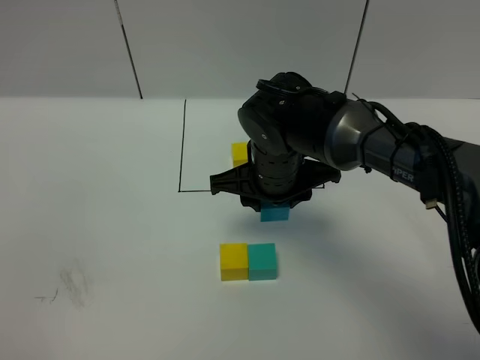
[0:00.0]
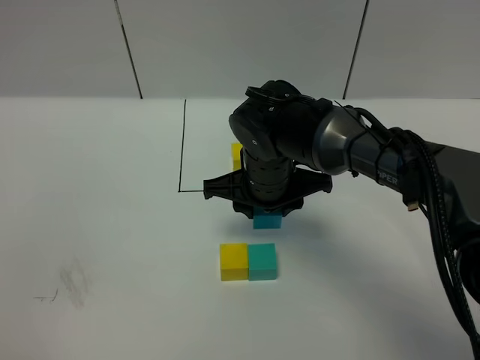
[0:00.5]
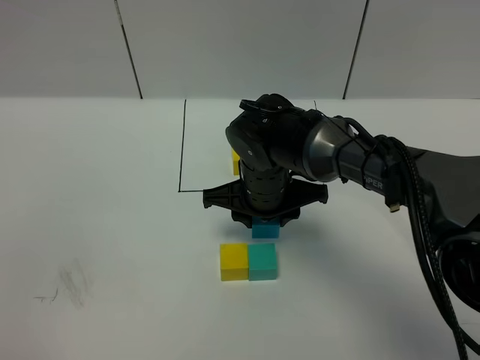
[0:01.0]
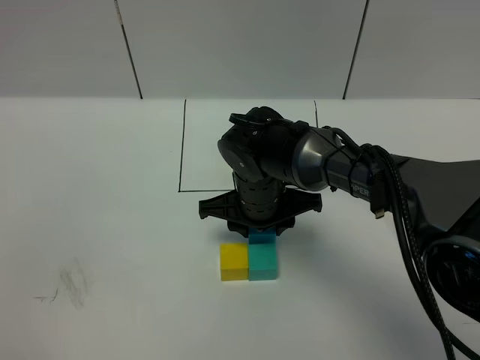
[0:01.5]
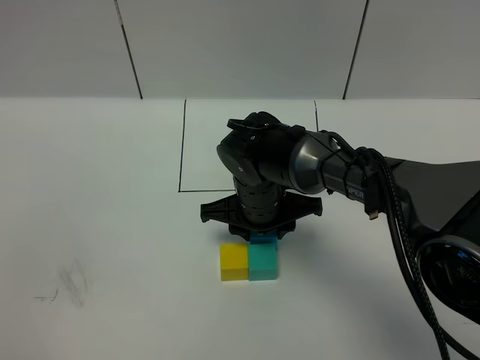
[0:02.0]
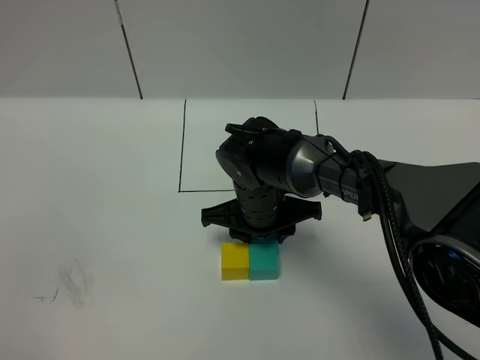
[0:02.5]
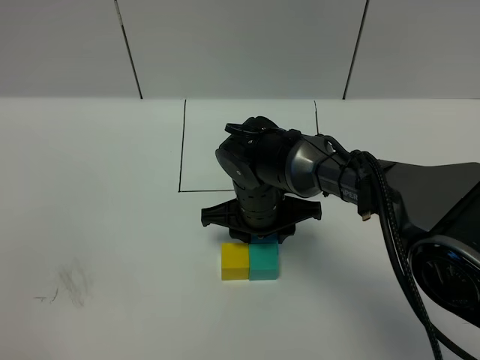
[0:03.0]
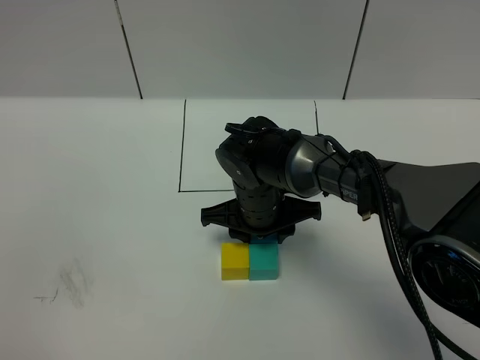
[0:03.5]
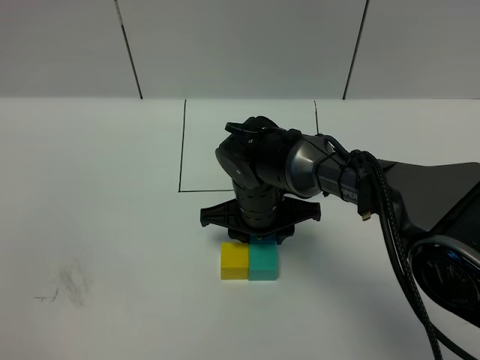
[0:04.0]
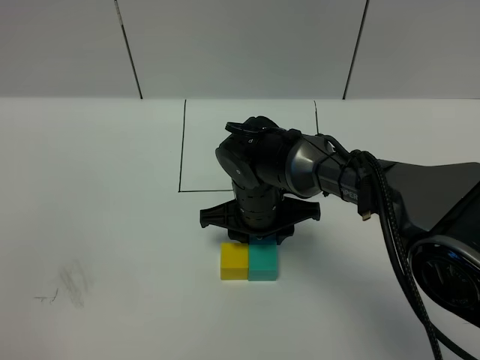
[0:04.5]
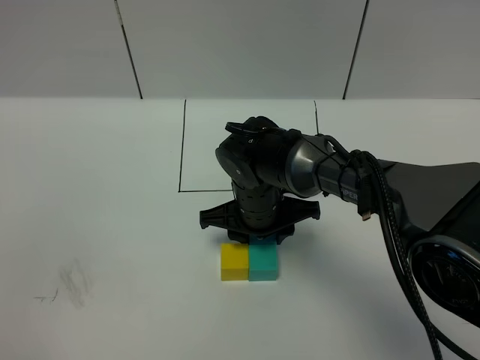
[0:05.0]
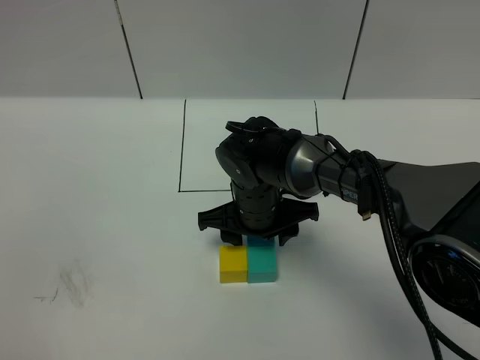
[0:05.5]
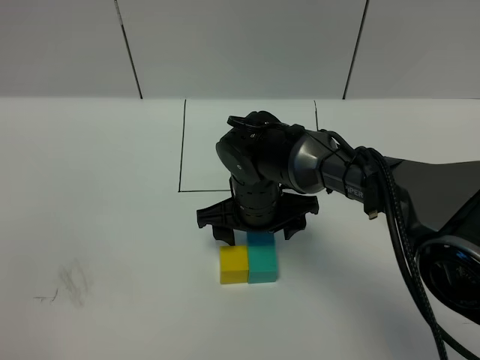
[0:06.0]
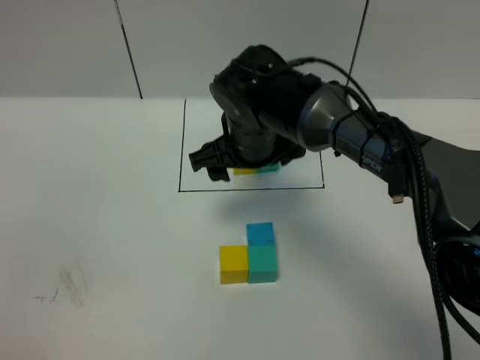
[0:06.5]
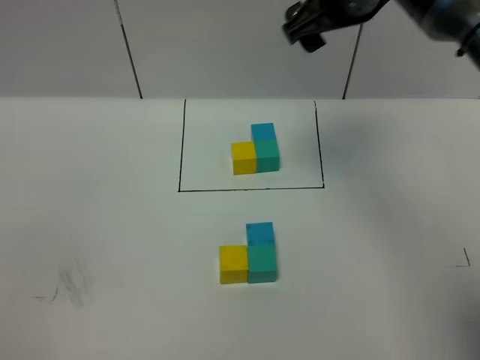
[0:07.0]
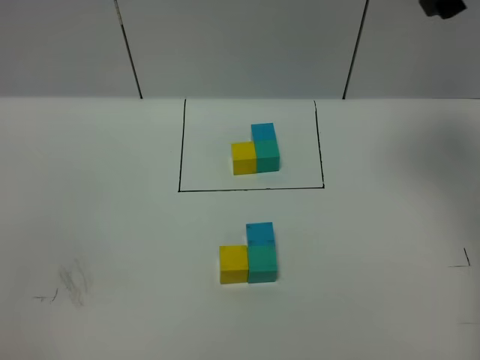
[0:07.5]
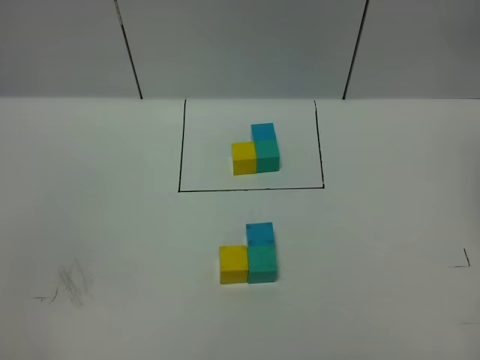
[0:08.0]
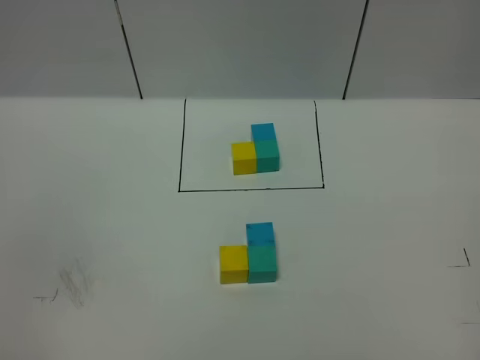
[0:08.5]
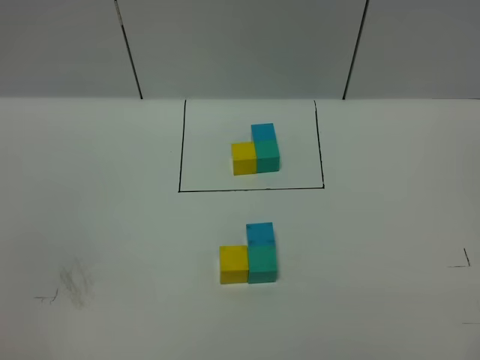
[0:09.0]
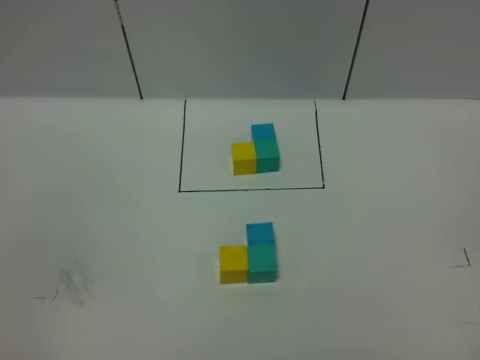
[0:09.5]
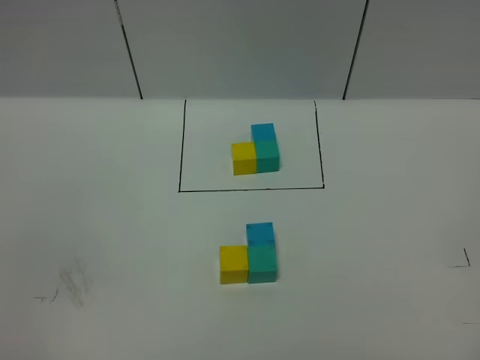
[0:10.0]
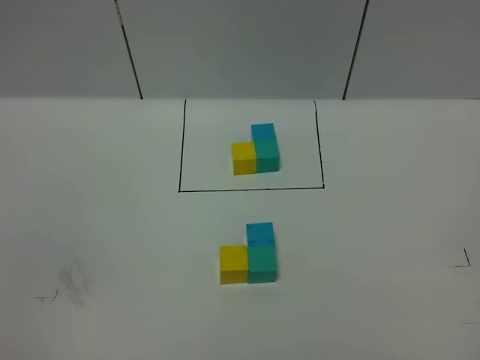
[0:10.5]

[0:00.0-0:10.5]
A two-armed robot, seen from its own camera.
Task of the whole recording: According to the building block template in front, assemble the scattered blocks together.
Step, 0:00.0 to 0:06.0: Put the blue cube on the behind of the green cube.
0:00.0 to 0:02.0: The right gripper is displaced downward by approximately 5 cm.
0:02.0 to 0:04.0: Neither gripper changes place.
0:04.0 to 0:06.5: The right gripper goes roughly 10 cm upward, and opens up.
0:06.5 to 0:08.5: The right gripper travels to the right, backward and upward by about 50 cm, and closes.
